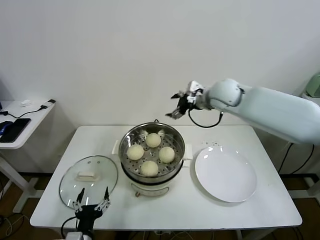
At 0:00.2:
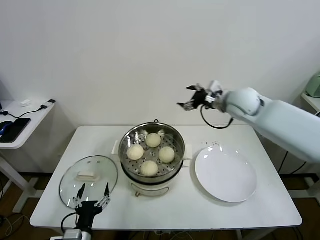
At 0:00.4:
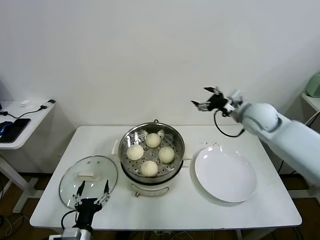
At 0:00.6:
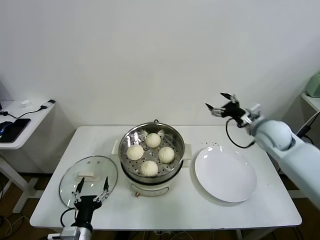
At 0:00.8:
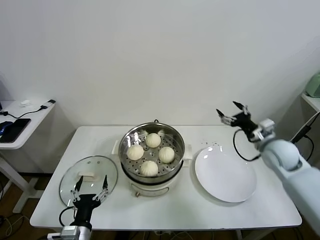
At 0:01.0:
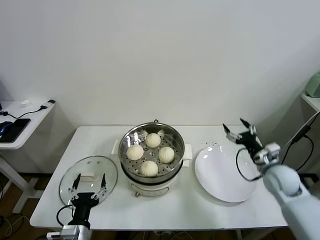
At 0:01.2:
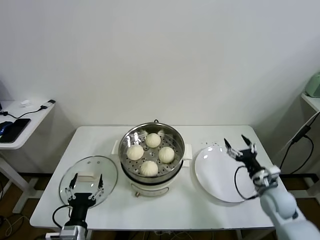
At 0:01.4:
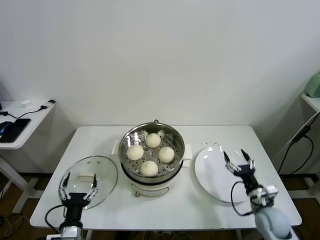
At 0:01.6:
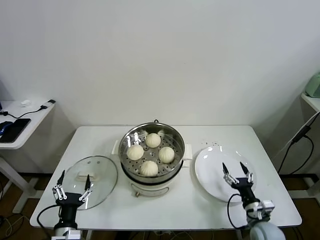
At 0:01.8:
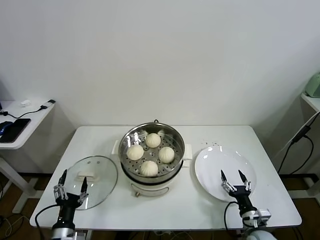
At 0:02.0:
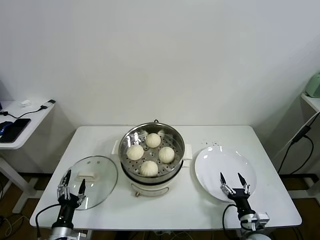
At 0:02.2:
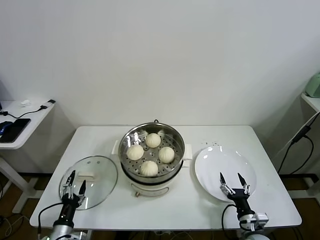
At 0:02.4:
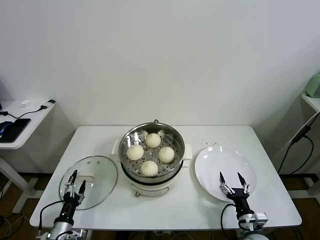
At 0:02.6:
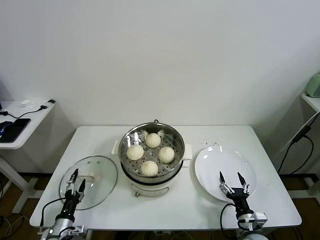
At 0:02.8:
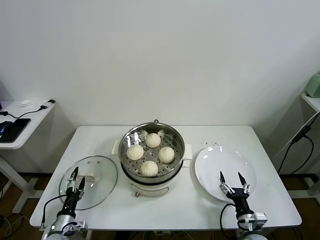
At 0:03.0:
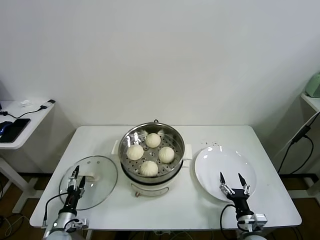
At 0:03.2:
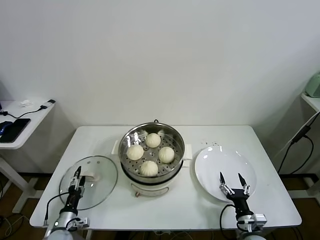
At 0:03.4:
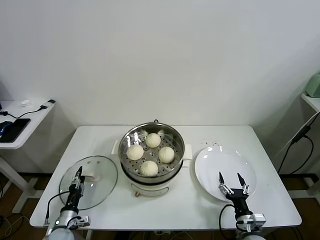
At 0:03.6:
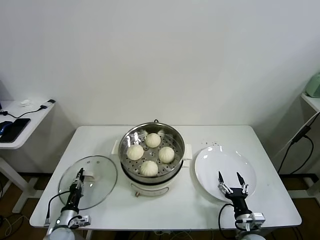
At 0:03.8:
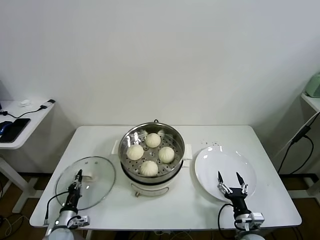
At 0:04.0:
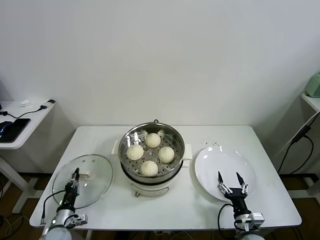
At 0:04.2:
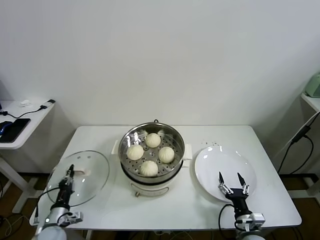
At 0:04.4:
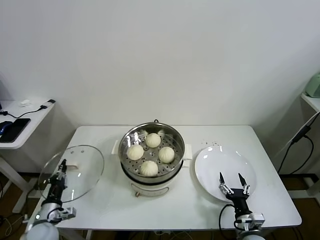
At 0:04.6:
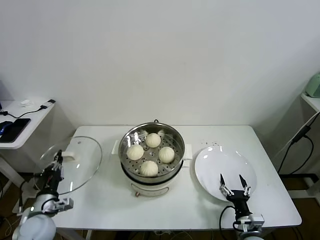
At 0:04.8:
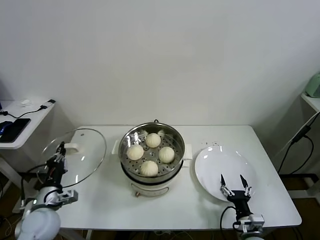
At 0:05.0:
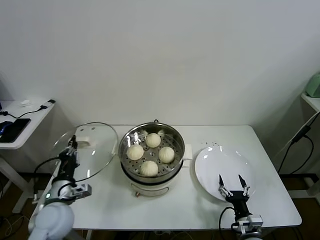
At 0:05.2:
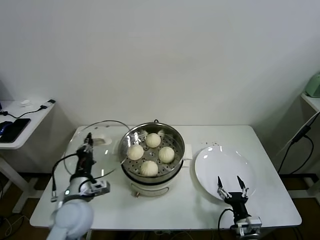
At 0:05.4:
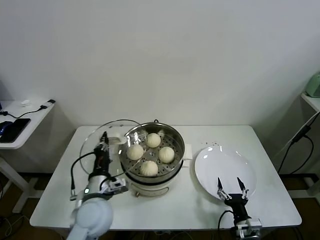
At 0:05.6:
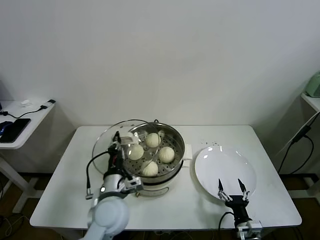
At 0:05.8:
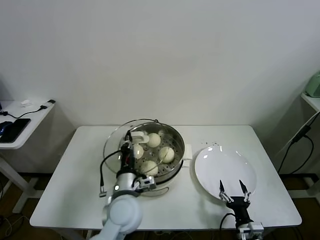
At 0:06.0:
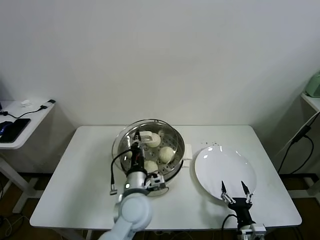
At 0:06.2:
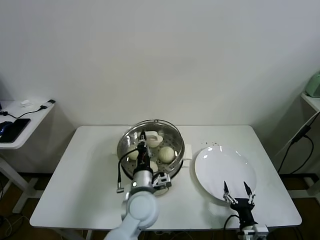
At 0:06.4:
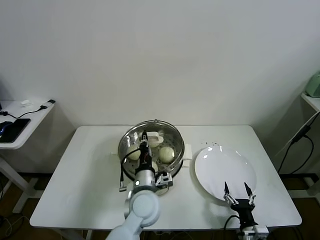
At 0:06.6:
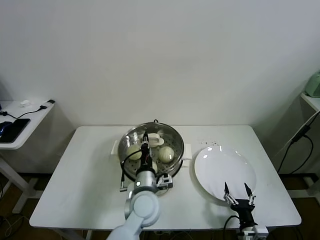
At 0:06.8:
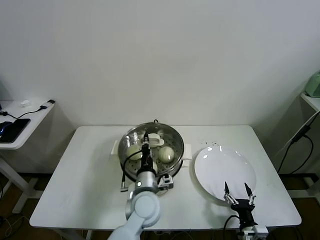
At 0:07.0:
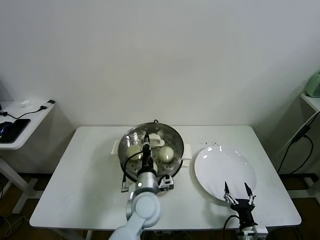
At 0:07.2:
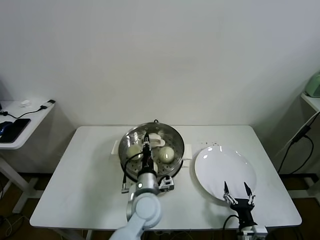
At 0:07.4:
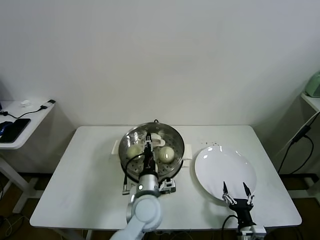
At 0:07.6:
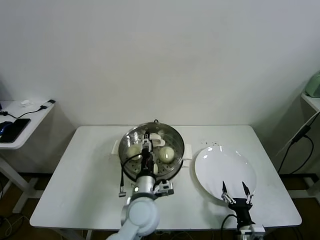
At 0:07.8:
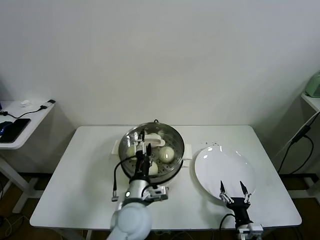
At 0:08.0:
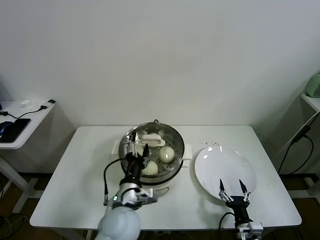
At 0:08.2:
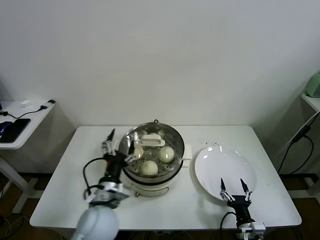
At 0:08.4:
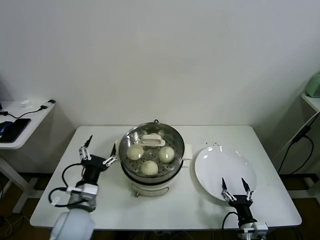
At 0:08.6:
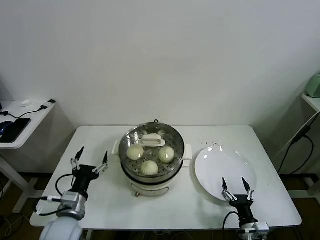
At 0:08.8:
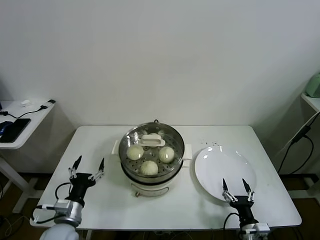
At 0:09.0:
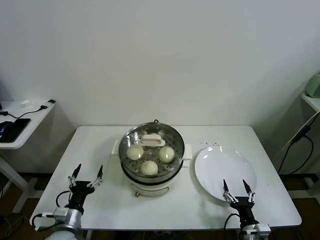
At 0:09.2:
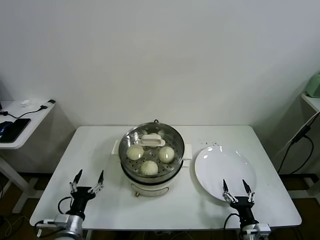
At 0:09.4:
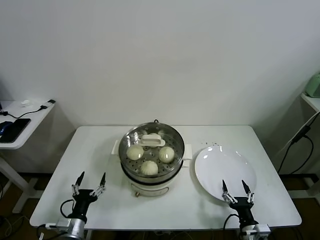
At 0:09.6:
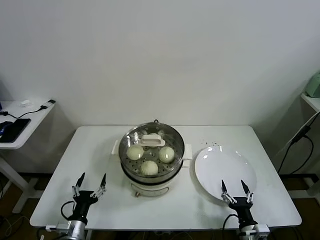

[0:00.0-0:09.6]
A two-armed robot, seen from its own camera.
Task of the whole recording: take steamed baozi put them in steamer.
Step, 0:00.0 to 0:03.6: Grasp the pot lid with left gripper.
Step, 0:03.8 to 0:07.6: Place the pot lid on the steamer with left gripper.
0:00.0 to 0:01.6: The right gripper heads downward and backward, covering approximately 50 cm, while the left gripper moves approximately 5 cm.
0:01.6 to 0:03.2: The right gripper ends up about 5 cm from where it was, while the left gripper goes roughly 15 cm downward, to the left and forward.
0:03.2 to 0:04.8: The left gripper is displaced upward by about 20 cm, and closes its fingers.
0:04.8 to 0:06.4: The left gripper moves to the right, approximately 30 cm.
0:06.4 to 0:08.0: The left gripper shifts about 5 cm backward, and opens.
0:08.0 to 0:09.6: The left gripper heads to the left and downward, covering some 25 cm.
